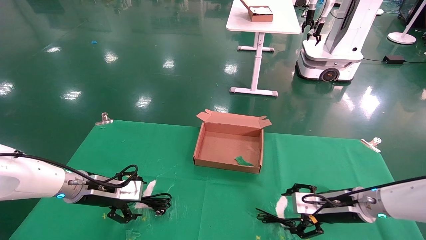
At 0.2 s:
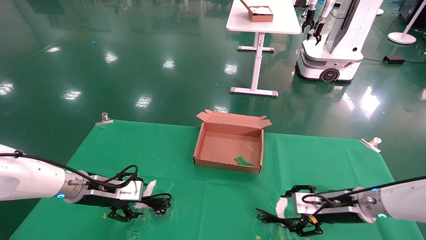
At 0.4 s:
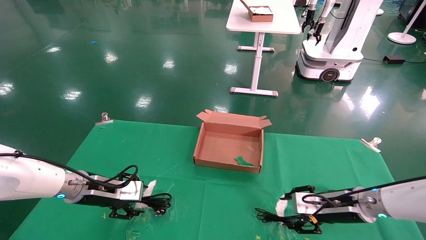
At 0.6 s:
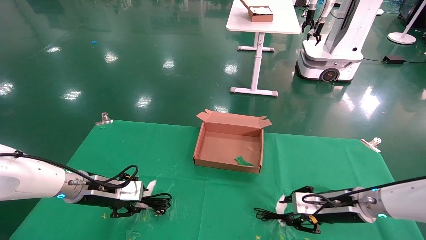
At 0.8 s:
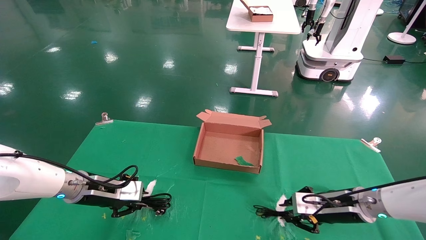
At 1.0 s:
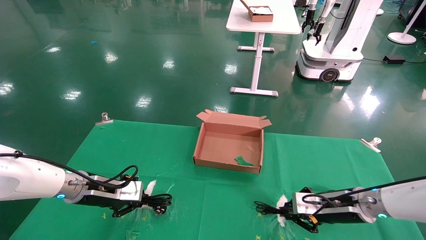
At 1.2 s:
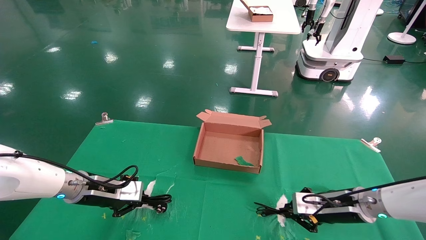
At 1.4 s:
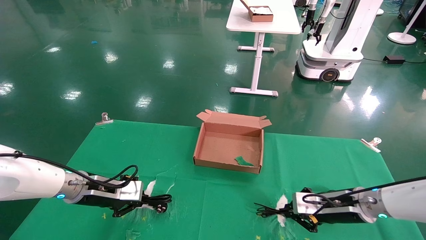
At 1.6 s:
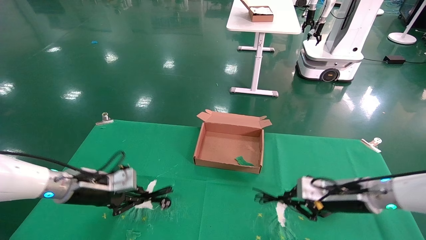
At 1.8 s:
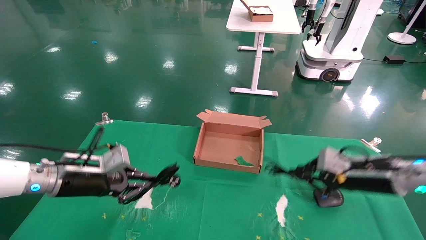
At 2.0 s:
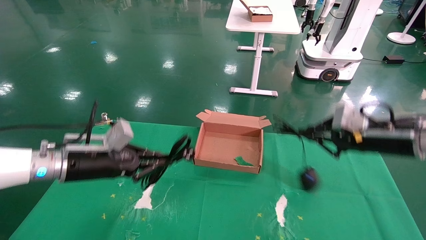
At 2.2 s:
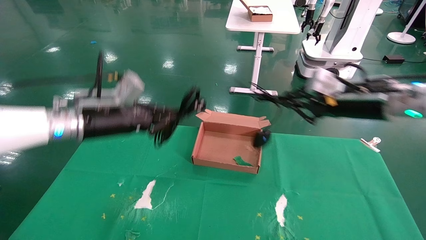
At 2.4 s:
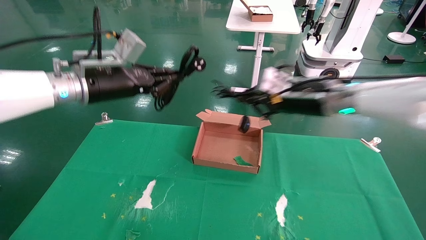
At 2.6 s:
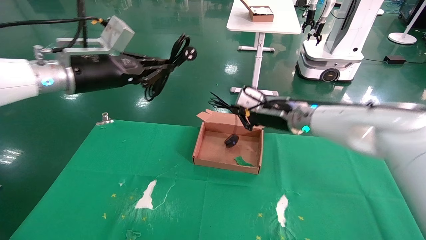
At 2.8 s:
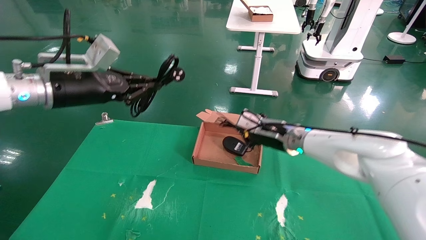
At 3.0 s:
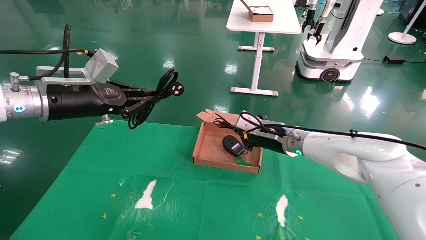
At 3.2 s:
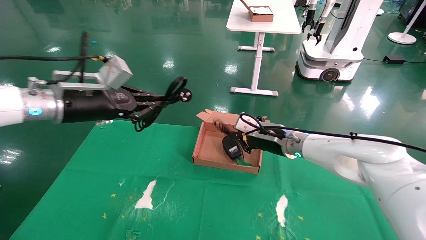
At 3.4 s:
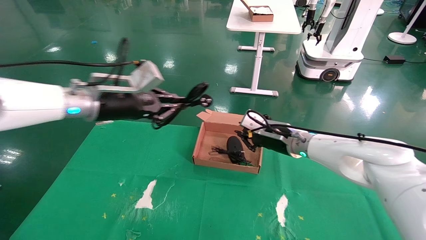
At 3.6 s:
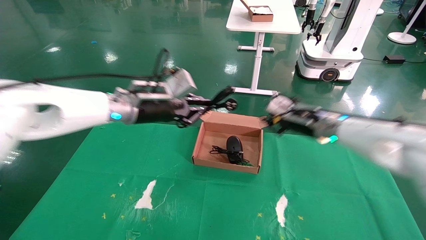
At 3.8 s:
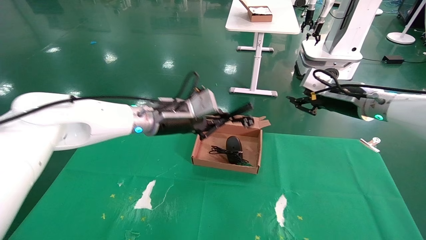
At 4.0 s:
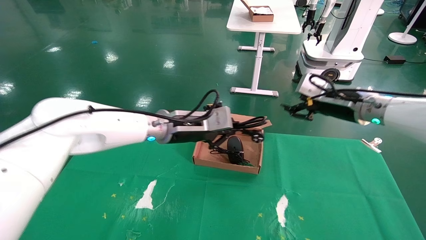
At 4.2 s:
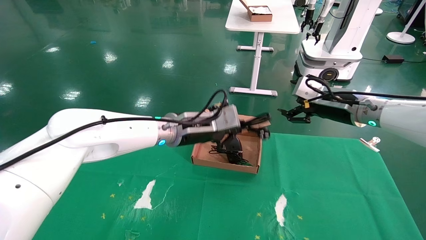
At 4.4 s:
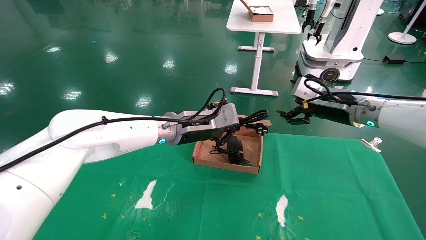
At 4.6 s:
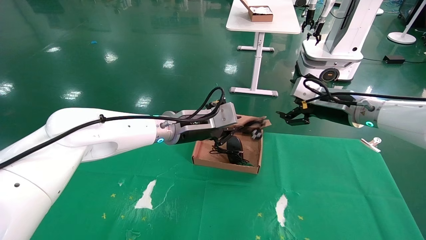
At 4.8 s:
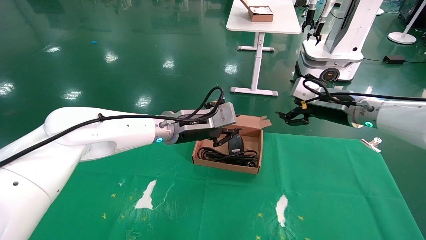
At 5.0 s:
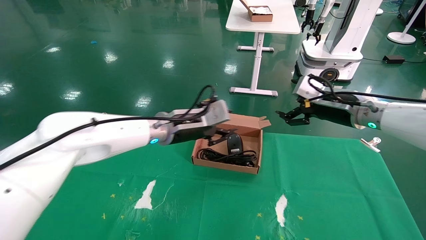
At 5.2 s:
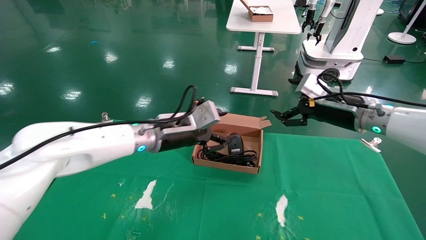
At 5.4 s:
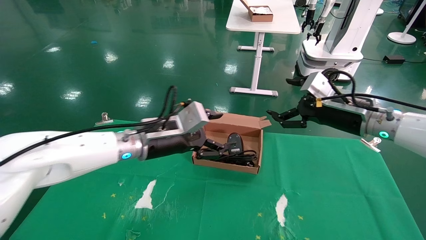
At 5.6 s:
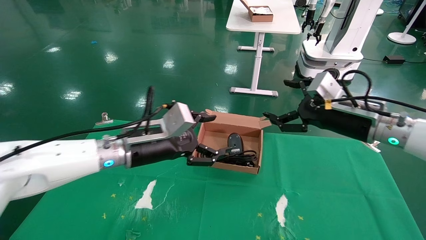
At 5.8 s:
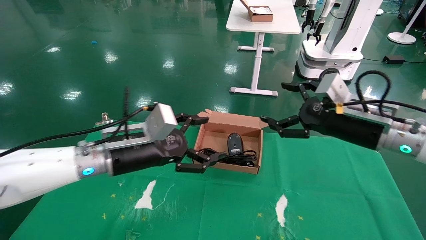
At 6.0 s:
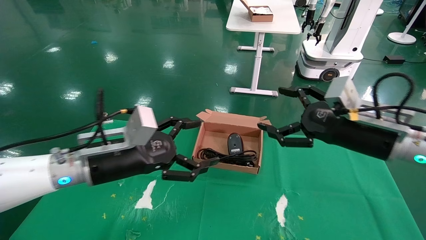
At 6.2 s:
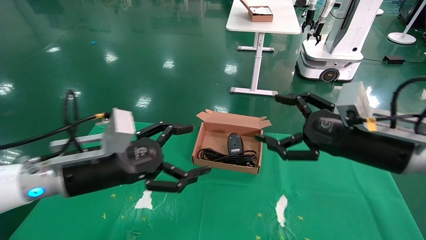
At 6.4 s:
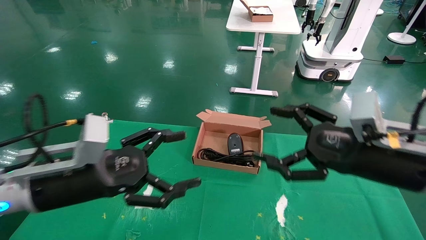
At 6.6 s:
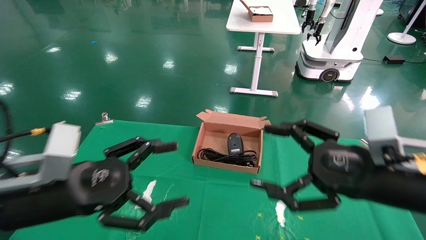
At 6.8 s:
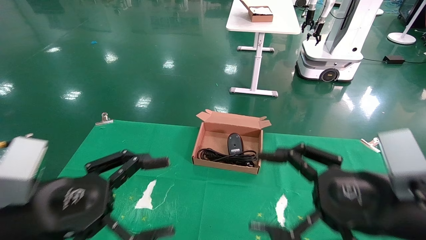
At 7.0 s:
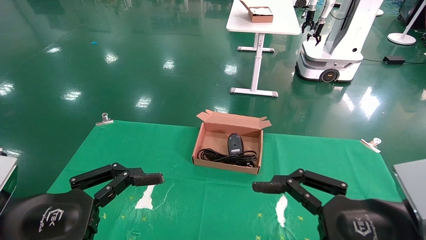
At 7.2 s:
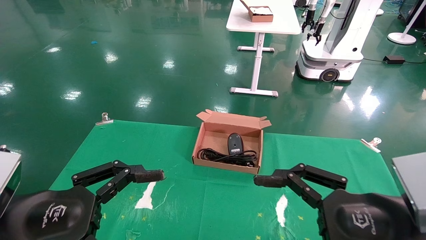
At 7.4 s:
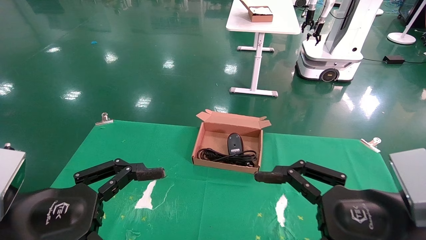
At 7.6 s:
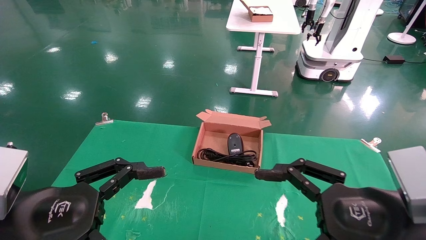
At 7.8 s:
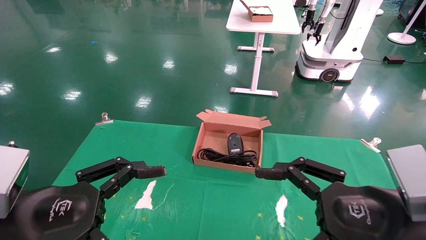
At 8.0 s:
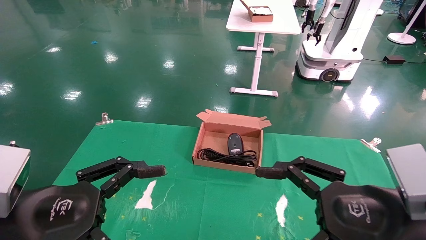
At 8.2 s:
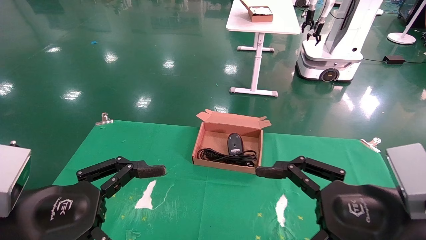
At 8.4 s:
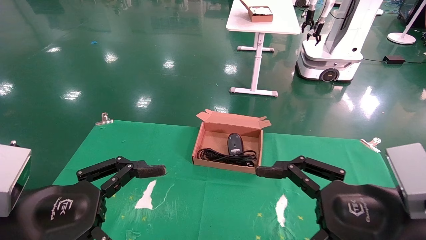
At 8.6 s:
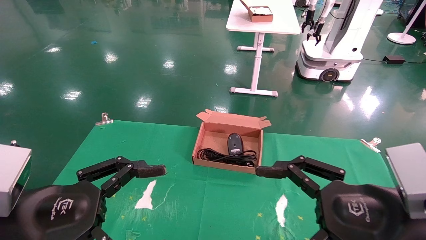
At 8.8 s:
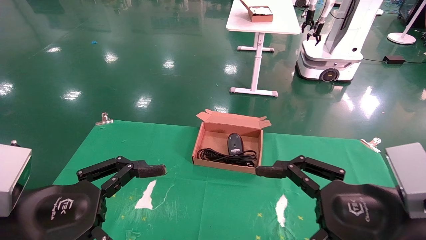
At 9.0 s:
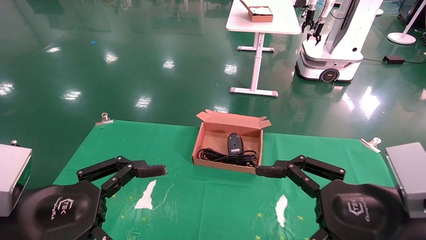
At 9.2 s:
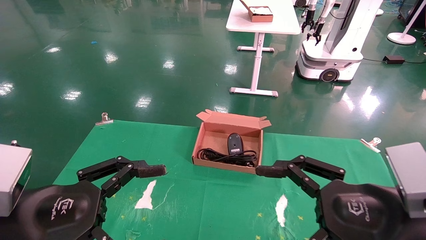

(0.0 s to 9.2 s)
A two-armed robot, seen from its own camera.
Step, 0.0 s - 2.0 s: Grab and lift both the mouse and power cord from the accessory packaging area at the same time.
Step, 2.2 s - 5.4 s: Place the mouse and power cord into the box.
0.0 s - 1.6 s: The left gripper closes up, while the right gripper closes its fingers.
1.6 s - 3.0 s: The left gripper goes roughly 20 cm upward; the right gripper travels to the left, forward and upward by roughly 20 cm.
3.0 s - 4.6 s: The left gripper travels to the right by approximately 20 cm, while the right gripper travels to the right and upward by roughly 15 cm, and opens up.
4.6 s - 6.2 s: The right gripper heads backward, covering approximately 15 cm. Meanwhile the left gripper is displaced backward and to the left by approximately 20 cm, and opens its fingers.
6.2 s - 7.6 s: Both grippers move backward, some 10 cm.
7.6 s - 9.2 s: Neither gripper changes place.
